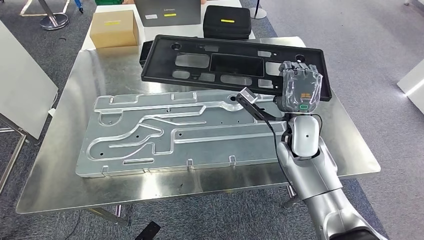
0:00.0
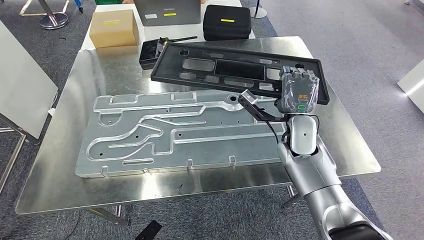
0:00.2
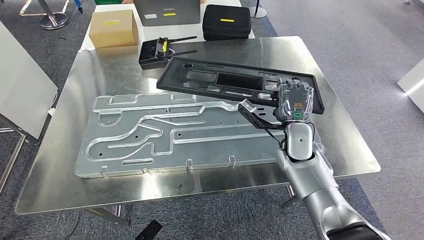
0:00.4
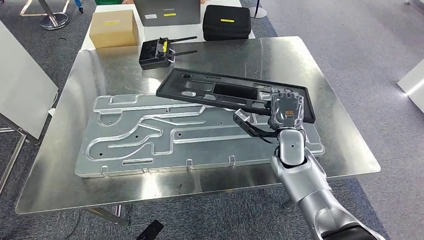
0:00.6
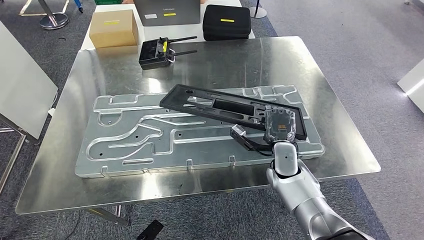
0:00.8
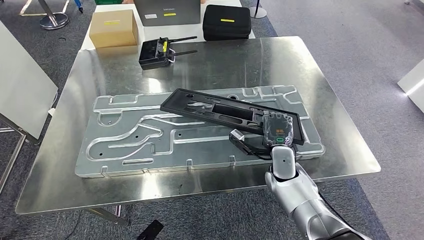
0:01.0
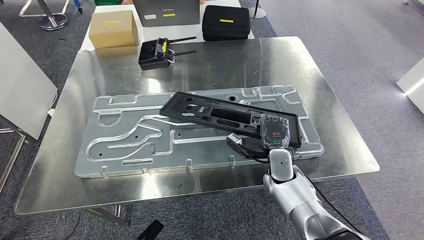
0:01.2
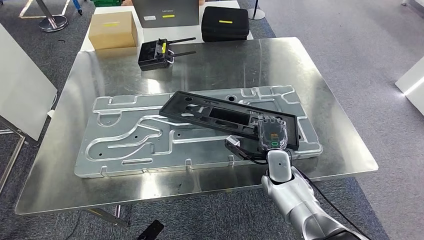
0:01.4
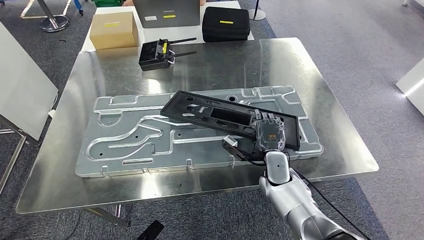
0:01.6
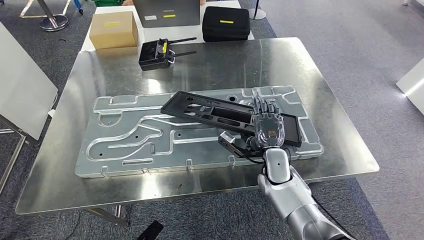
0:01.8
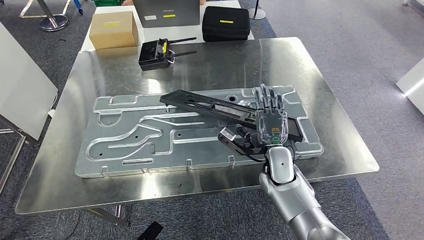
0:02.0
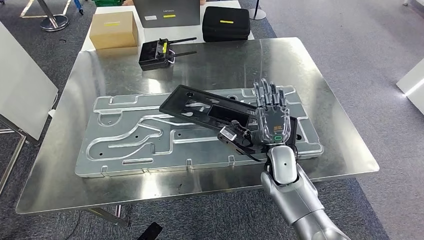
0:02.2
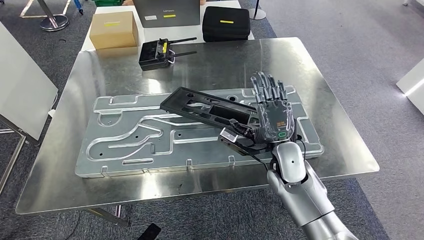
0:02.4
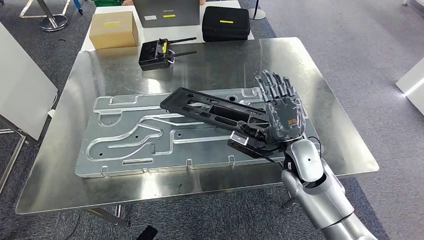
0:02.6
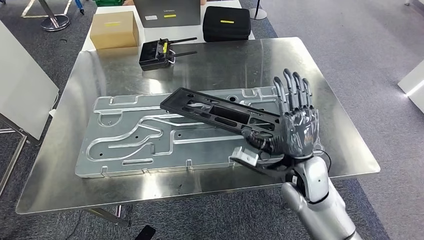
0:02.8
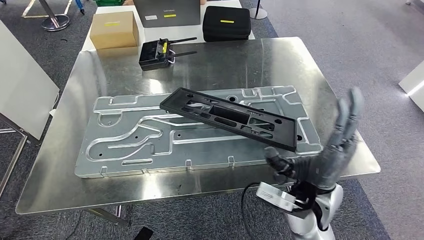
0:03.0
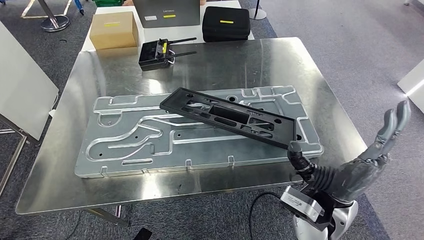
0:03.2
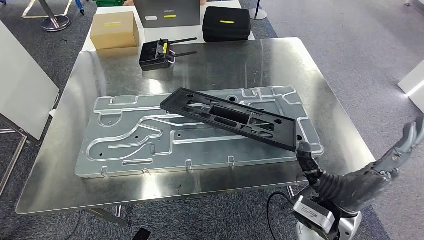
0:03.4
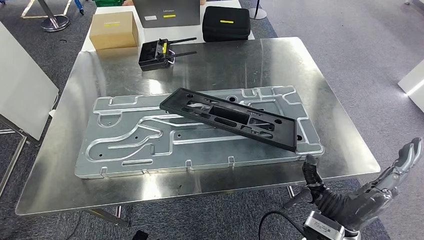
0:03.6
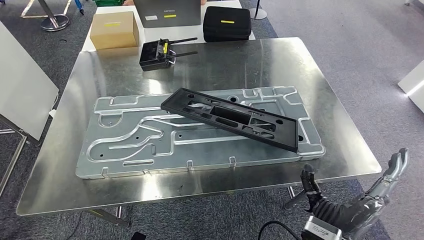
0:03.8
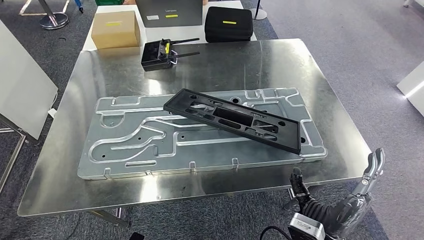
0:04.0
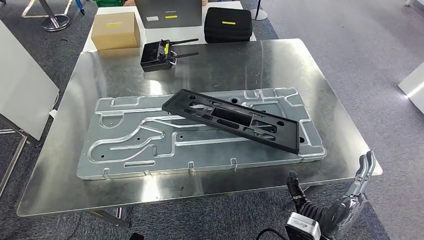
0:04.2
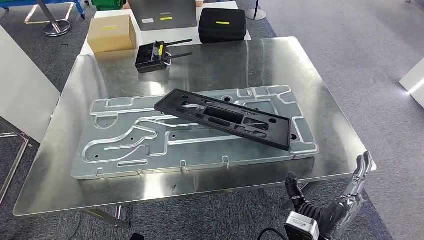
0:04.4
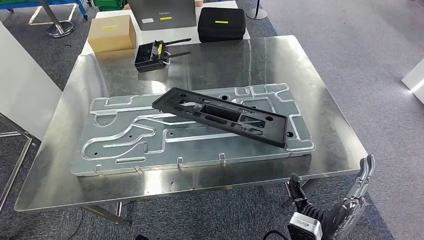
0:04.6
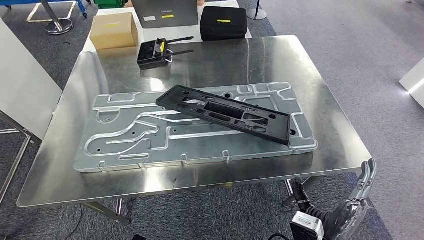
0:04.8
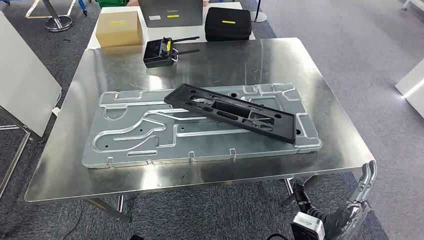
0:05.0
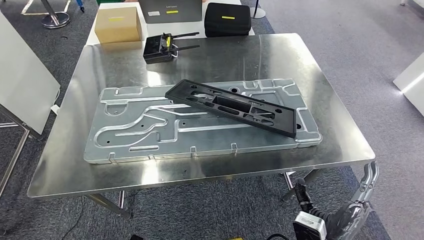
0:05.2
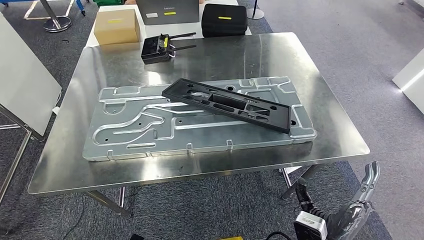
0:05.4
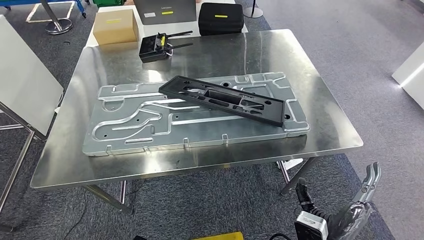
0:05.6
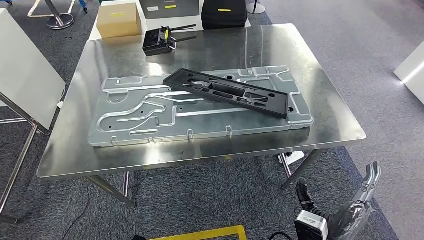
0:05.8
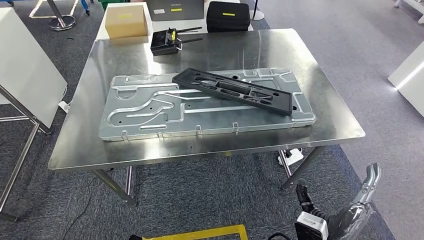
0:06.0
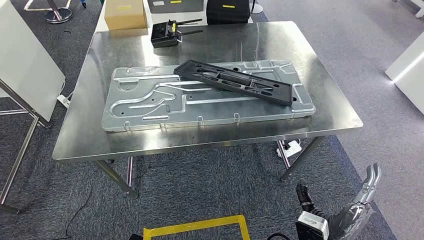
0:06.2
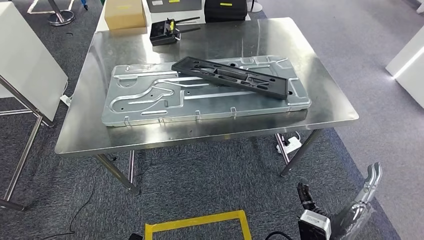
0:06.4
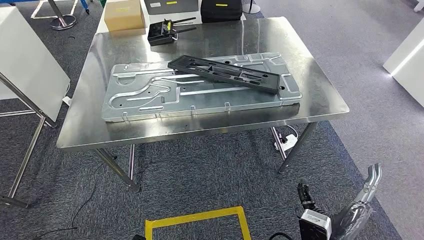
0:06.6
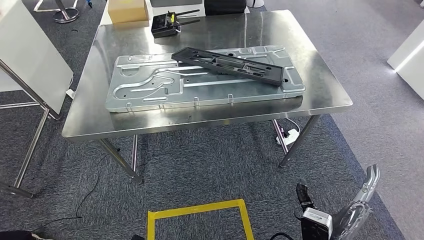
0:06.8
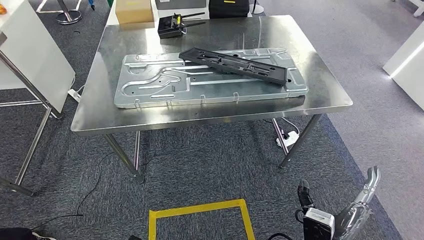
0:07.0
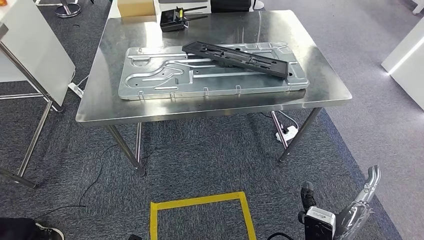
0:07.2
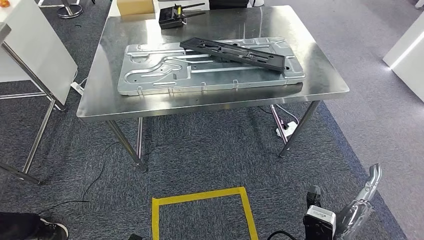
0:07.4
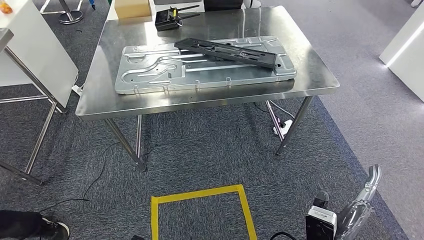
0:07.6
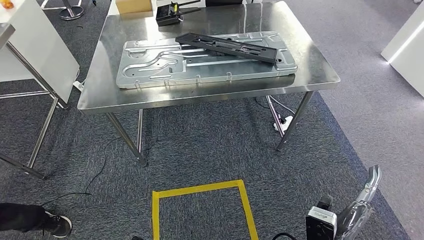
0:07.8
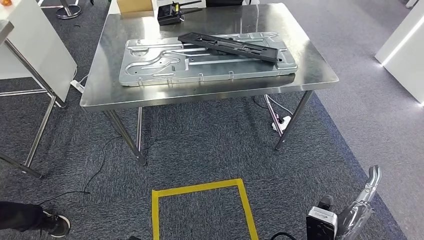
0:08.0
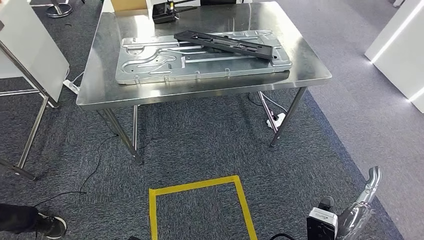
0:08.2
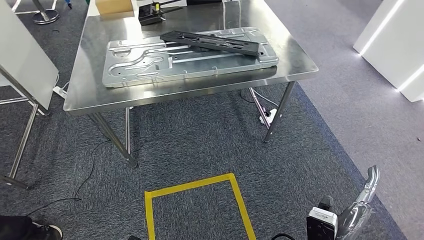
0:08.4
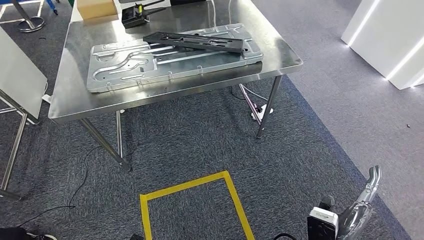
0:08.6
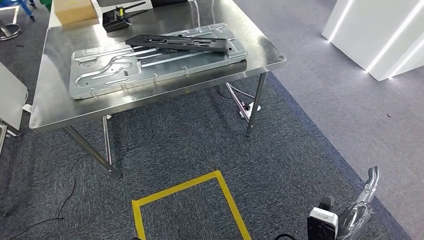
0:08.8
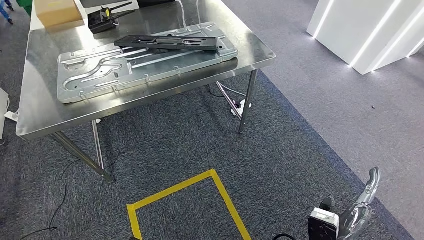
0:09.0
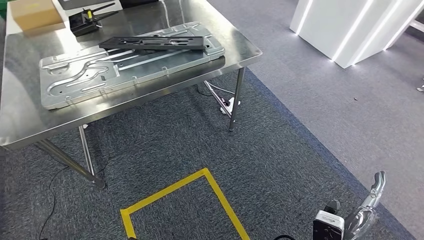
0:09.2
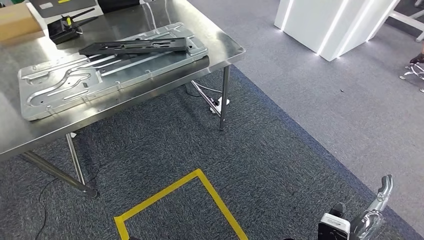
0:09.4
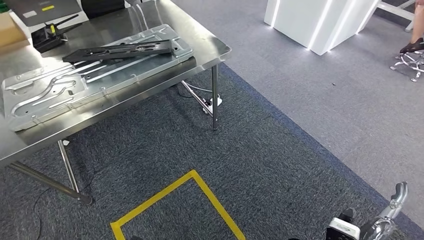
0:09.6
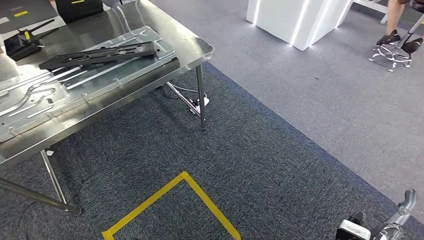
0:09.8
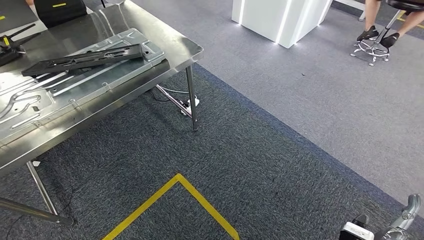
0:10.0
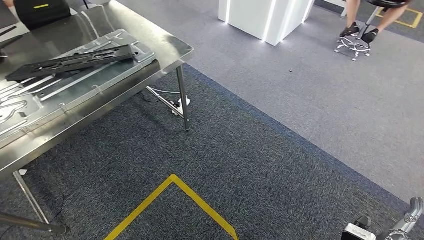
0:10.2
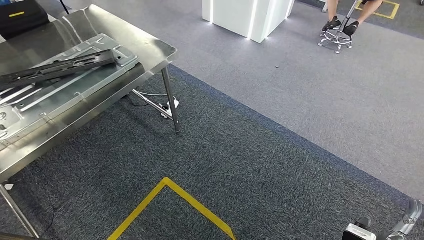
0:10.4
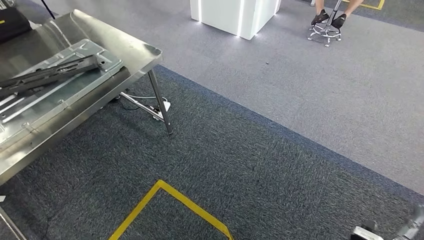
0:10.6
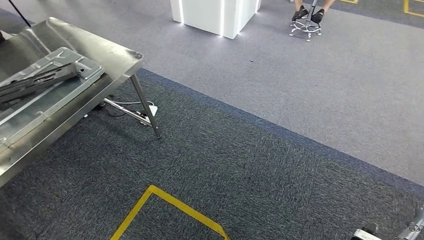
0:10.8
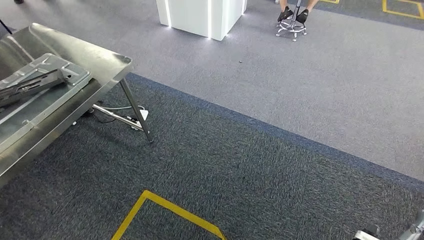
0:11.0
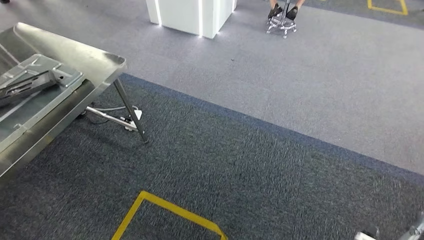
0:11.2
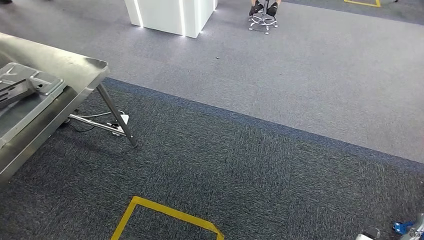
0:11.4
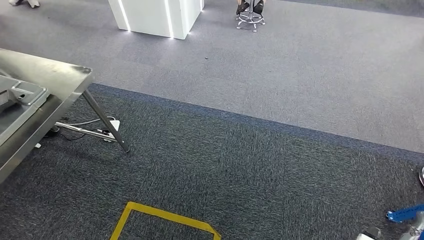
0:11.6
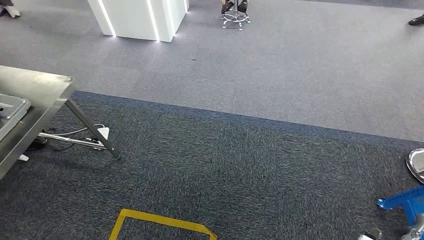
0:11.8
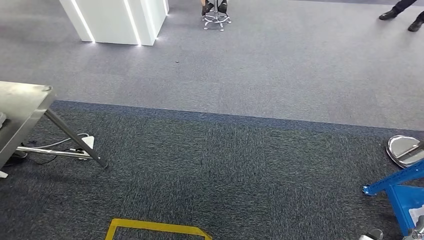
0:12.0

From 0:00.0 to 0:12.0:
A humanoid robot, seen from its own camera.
Step, from 0:00.0 to 0:02.6: Insert the large material into the corresponding slot on the workbench.
From 0:01.6 to 0:03.0: The right hand heads upward and backward, covering approximately 15 cm.

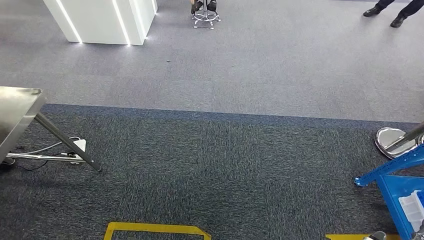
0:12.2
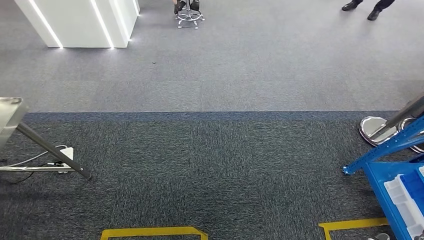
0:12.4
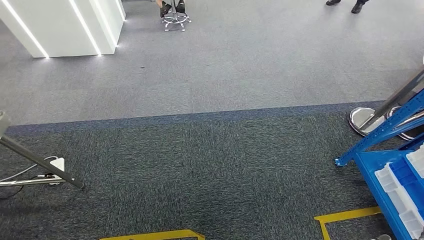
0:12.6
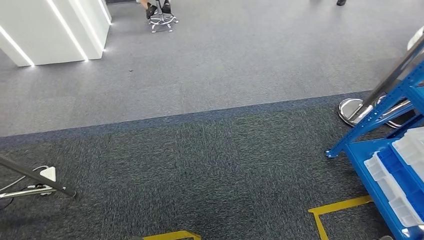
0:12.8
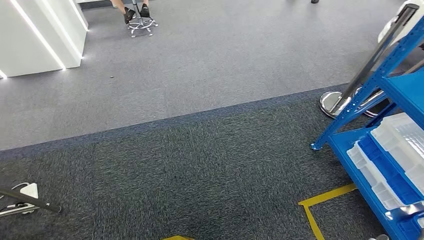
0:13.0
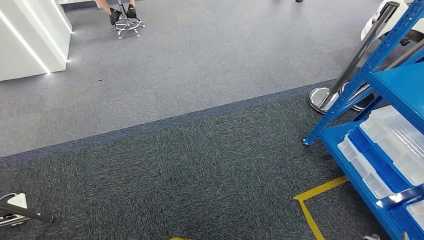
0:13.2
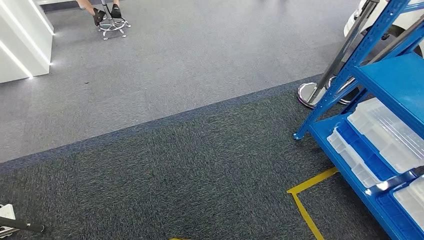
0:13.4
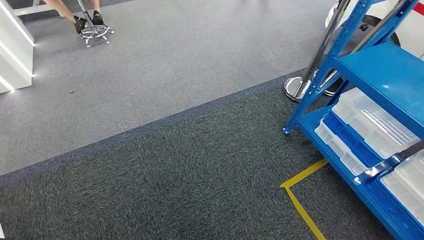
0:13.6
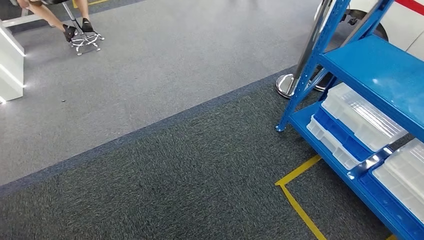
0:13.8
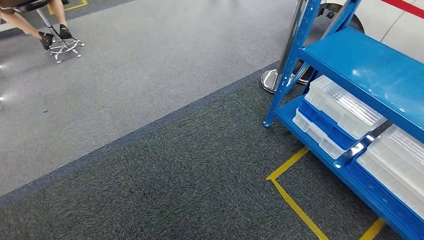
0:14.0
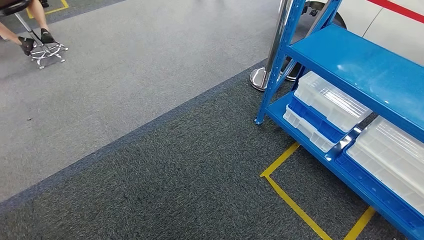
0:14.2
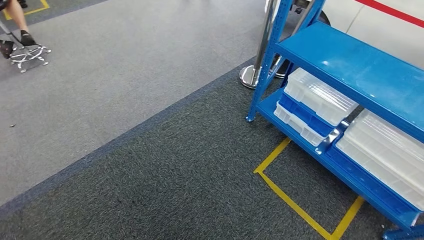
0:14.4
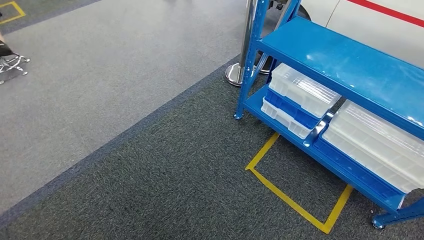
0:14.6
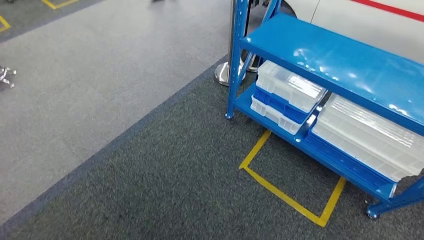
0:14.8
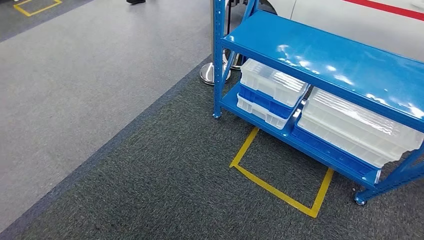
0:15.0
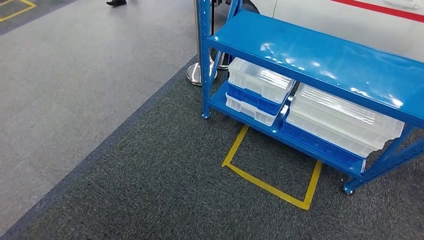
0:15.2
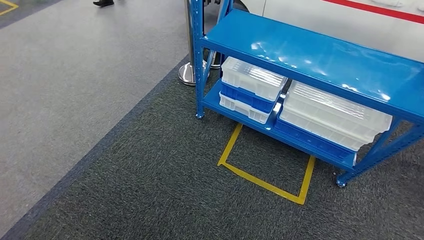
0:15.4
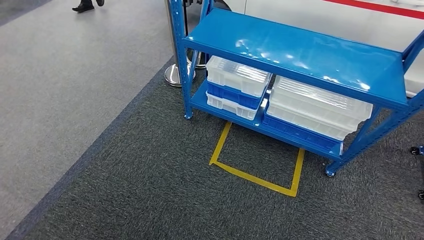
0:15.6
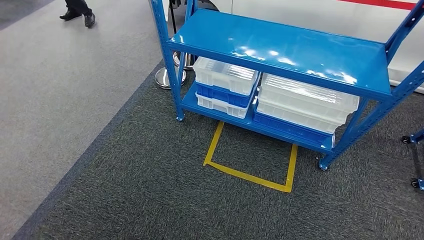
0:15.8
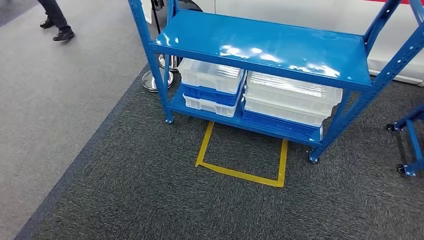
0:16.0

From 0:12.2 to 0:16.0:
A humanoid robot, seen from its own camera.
Step, from 0:12.2 to 0:15.8: Move to the initial position of the shelf.
